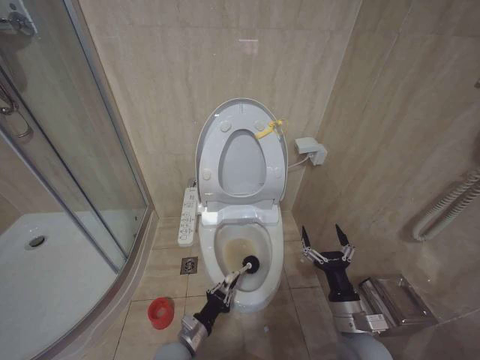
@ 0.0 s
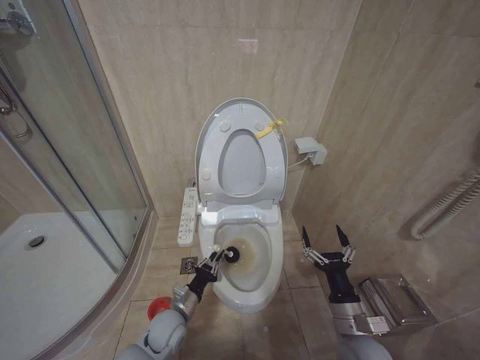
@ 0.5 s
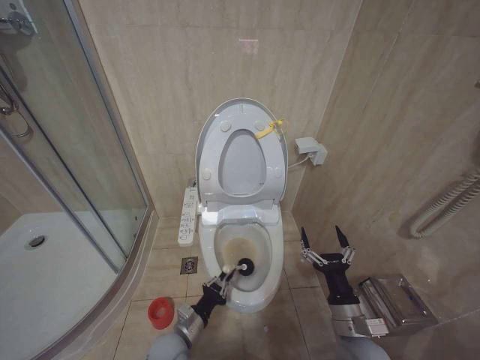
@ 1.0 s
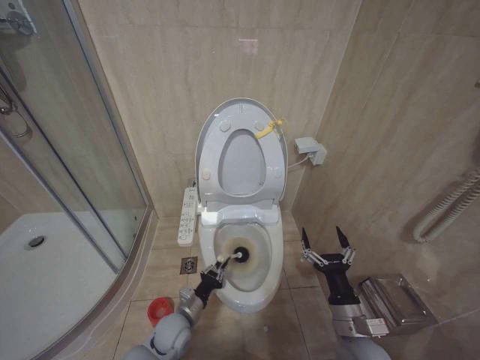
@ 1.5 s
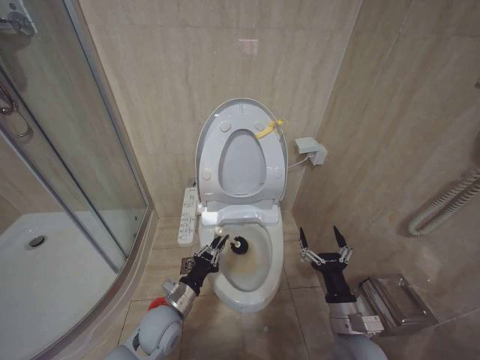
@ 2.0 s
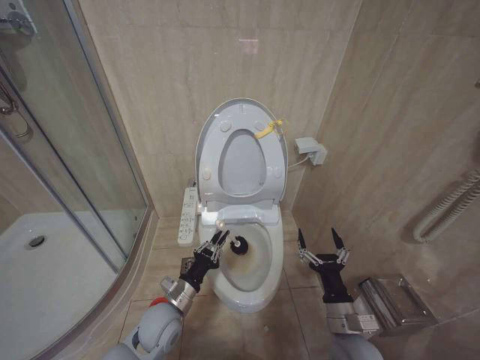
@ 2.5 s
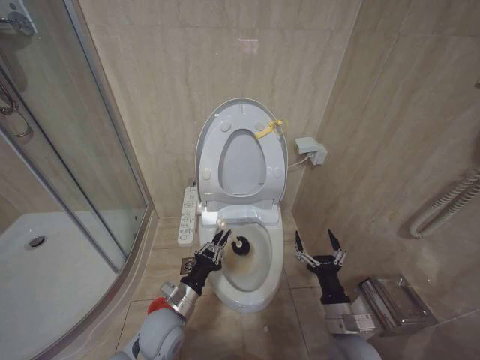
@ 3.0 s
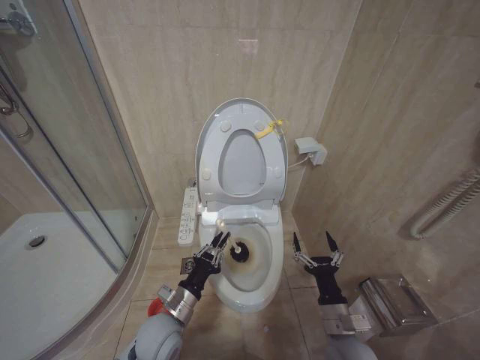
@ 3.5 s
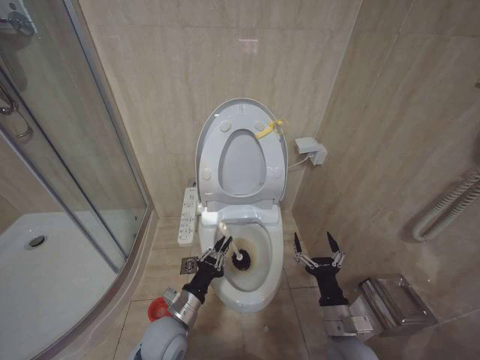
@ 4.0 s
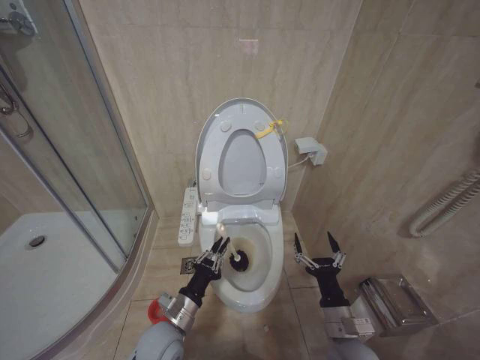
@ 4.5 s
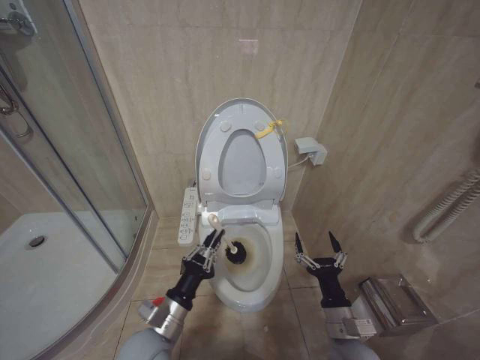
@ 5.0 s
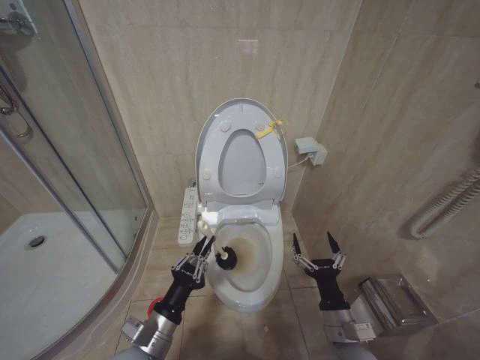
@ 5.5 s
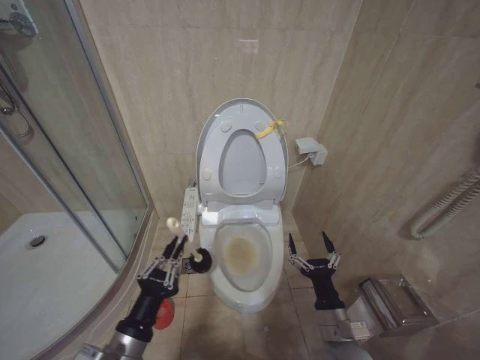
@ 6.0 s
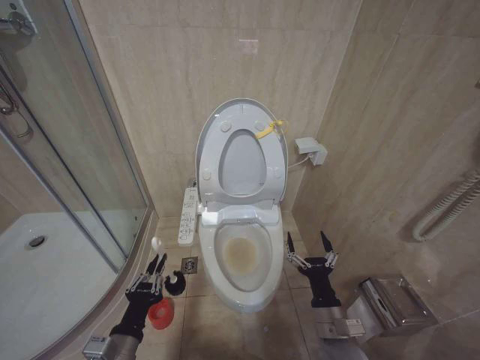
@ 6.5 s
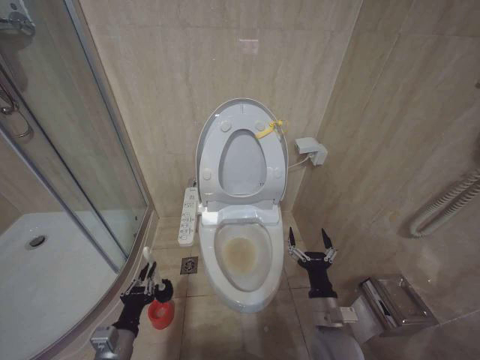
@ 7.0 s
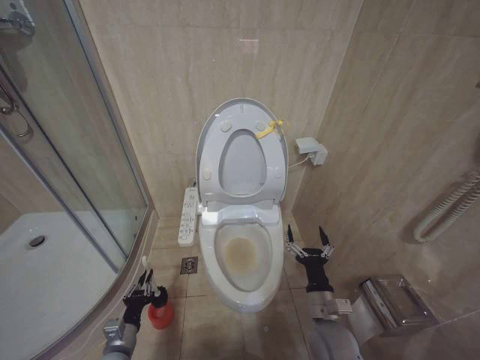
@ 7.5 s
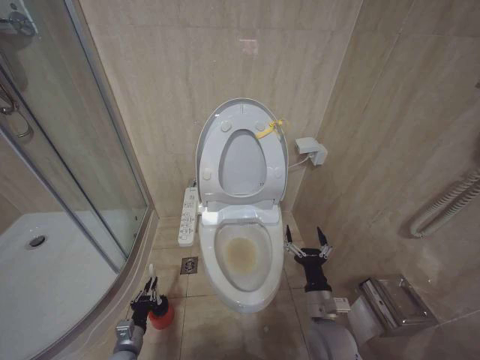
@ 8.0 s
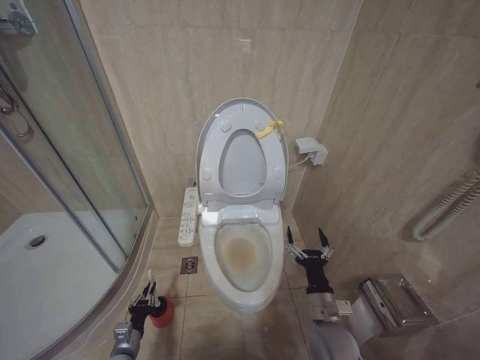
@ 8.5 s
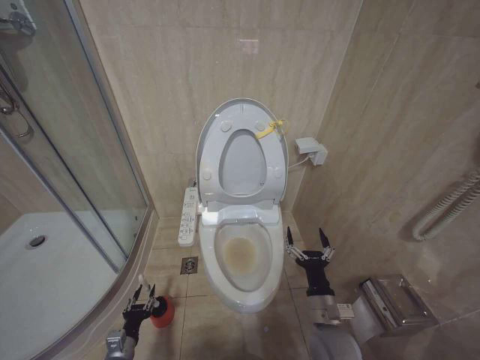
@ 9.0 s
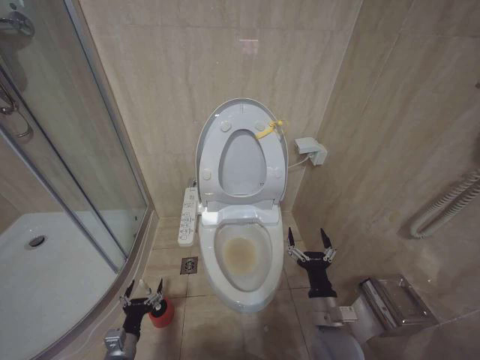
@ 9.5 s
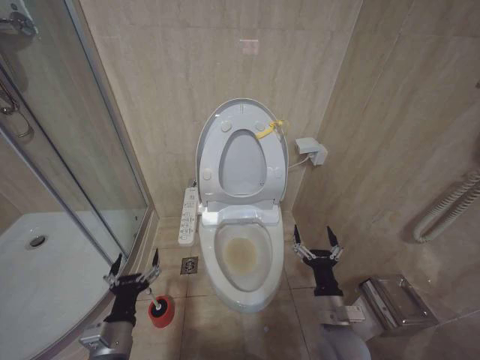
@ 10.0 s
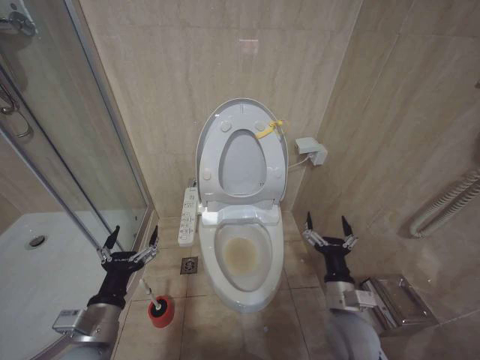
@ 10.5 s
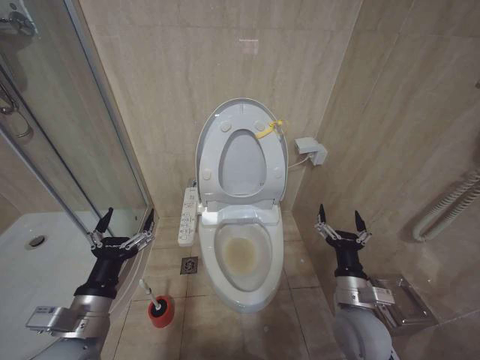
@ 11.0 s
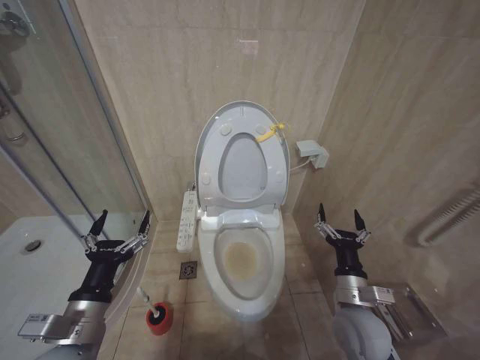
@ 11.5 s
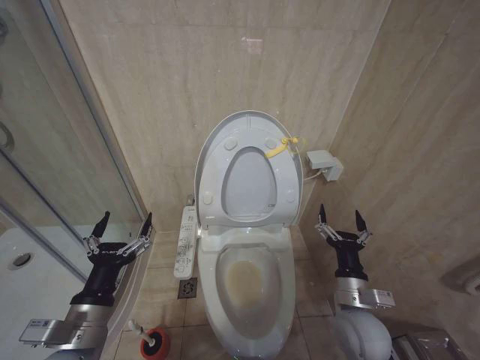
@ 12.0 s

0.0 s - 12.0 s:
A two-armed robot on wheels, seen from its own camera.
Task of the whole recording: Open the toilet lid, clean the toilet bowl with a toilet brush, close the toilet lid, and flush.
0.0 s - 2.0 s: The left gripper goes some 10 cm upward and forward.
2.0 s - 4.0 s: The grippers move only a little.
4.0 s - 6.0 s: The left gripper is displaced backward, upward and to the left by about 15 cm.
6.0 s - 8.0 s: The left gripper goes roughly 25 cm downward.
8.0 s - 10.0 s: The left gripper shifts roughly 15 cm upward, and opens up.
10.0 s - 12.0 s: The left gripper moves upward, approximately 15 cm, while the right gripper shifts about 5 cm upward.

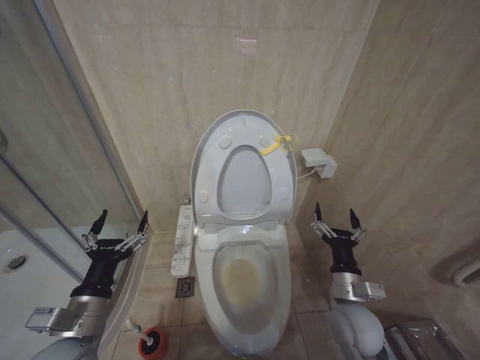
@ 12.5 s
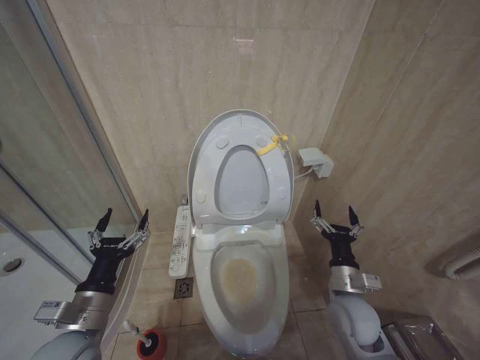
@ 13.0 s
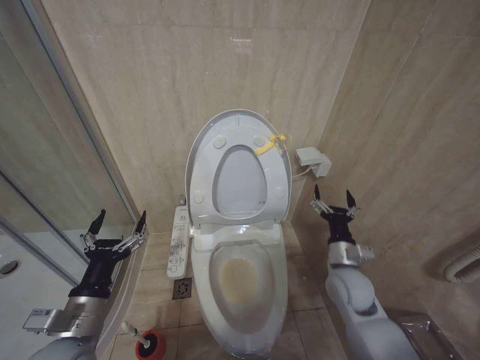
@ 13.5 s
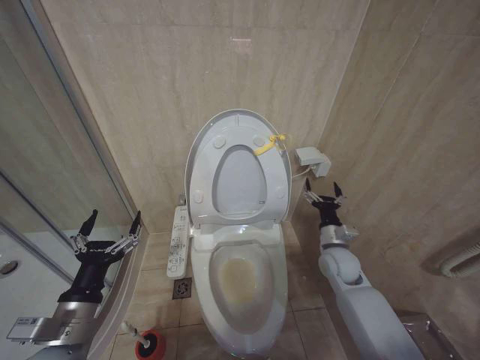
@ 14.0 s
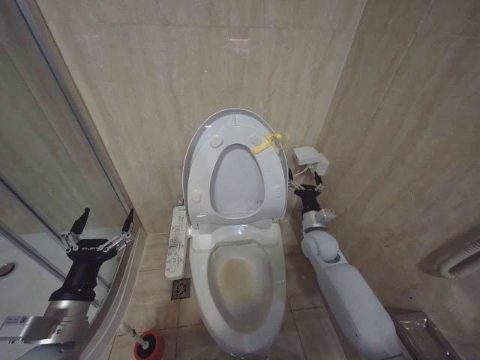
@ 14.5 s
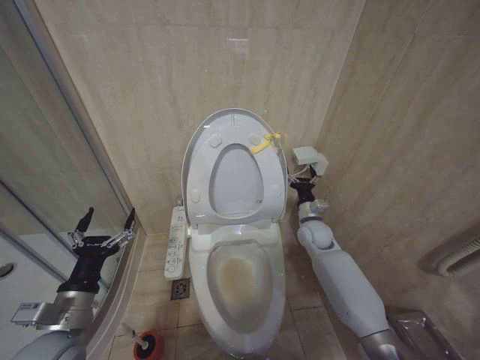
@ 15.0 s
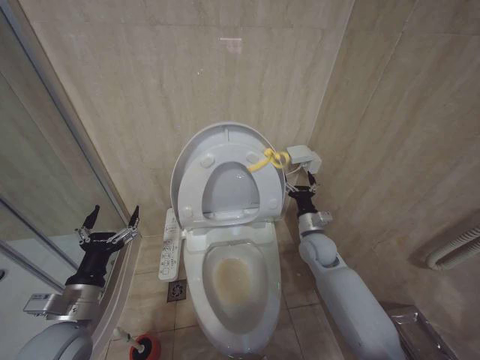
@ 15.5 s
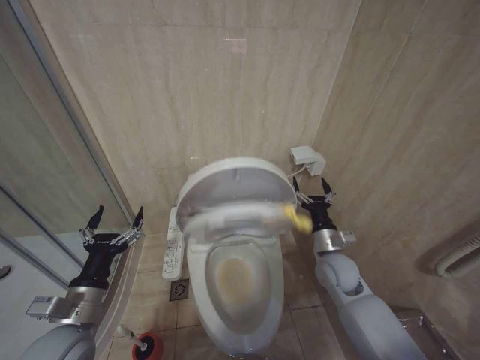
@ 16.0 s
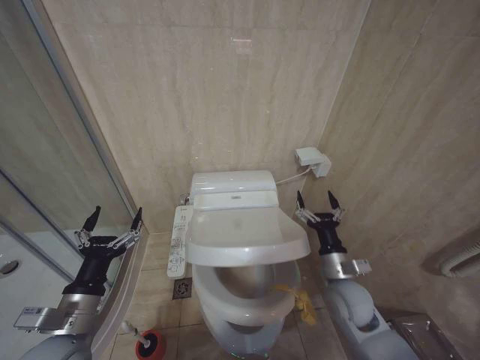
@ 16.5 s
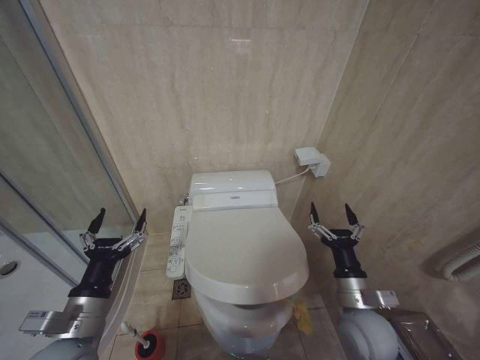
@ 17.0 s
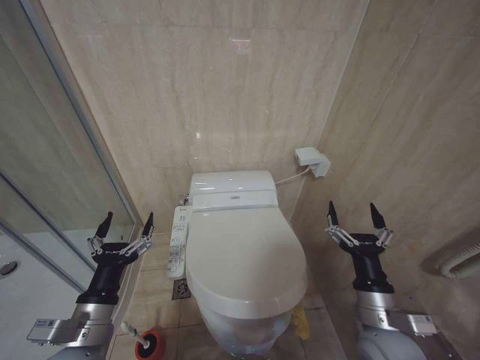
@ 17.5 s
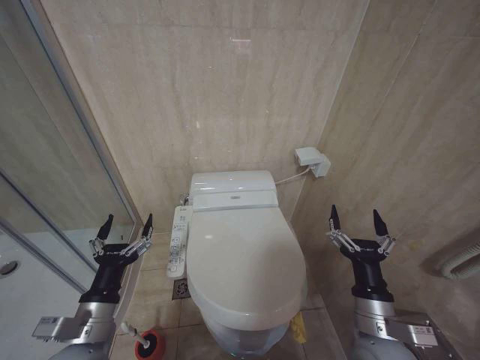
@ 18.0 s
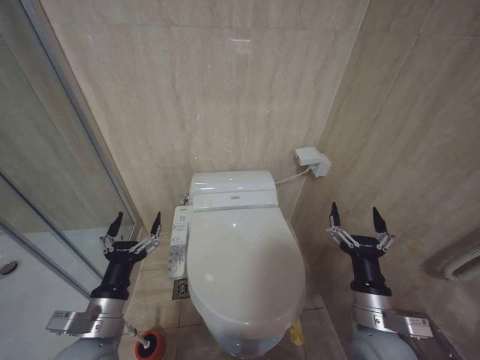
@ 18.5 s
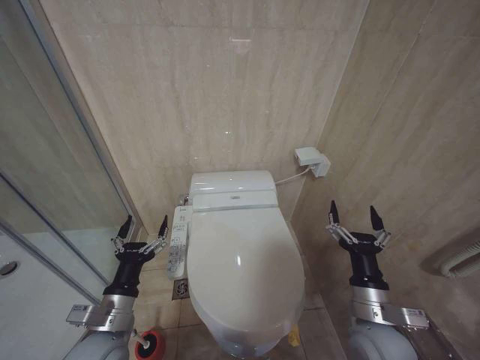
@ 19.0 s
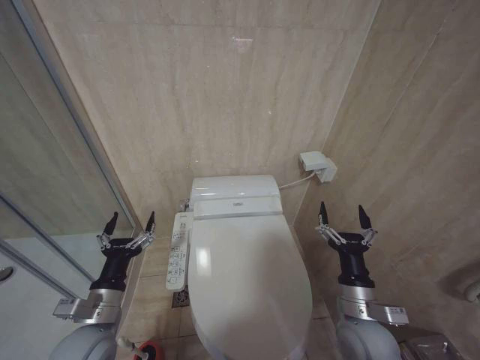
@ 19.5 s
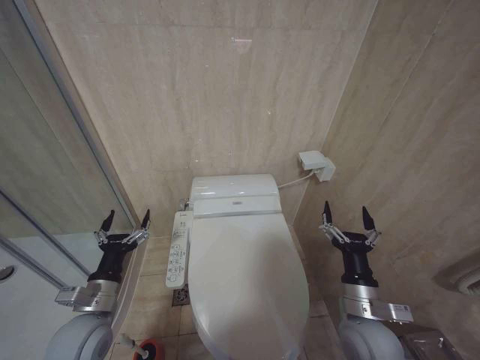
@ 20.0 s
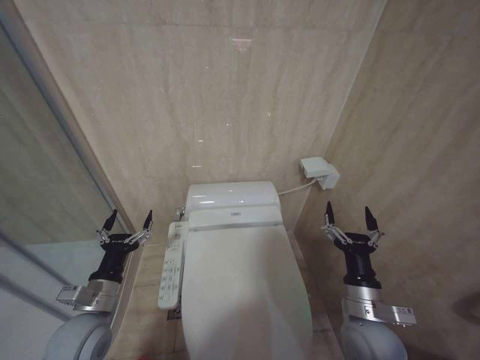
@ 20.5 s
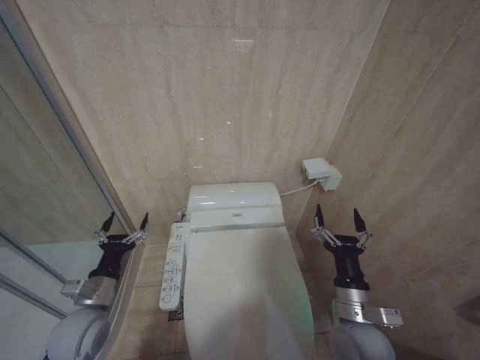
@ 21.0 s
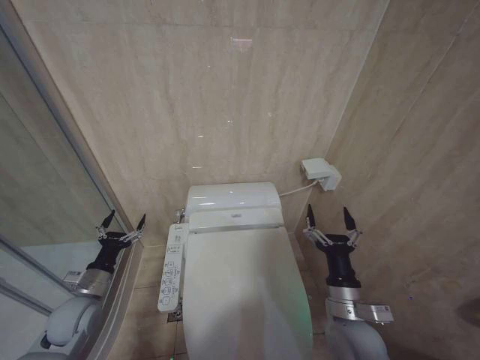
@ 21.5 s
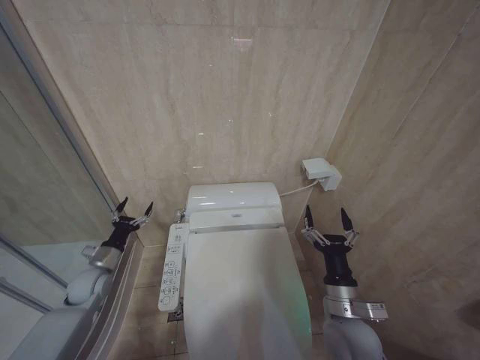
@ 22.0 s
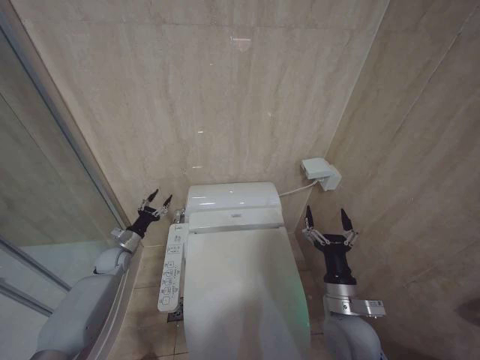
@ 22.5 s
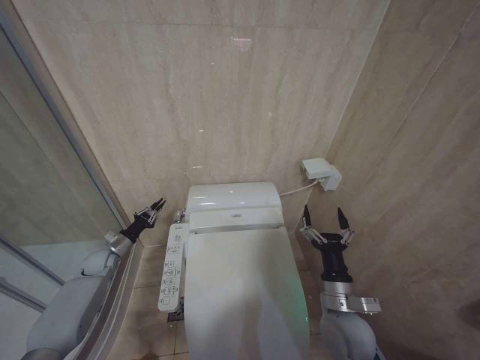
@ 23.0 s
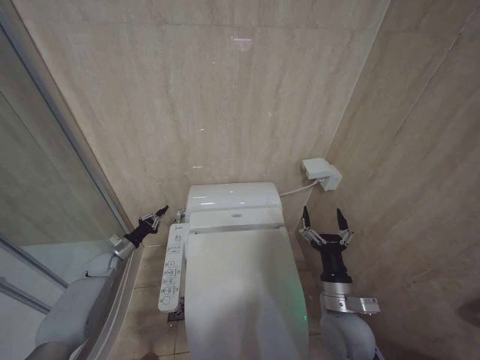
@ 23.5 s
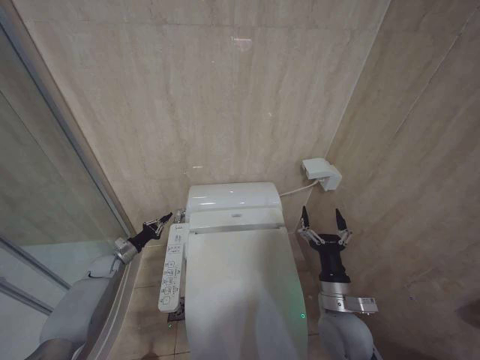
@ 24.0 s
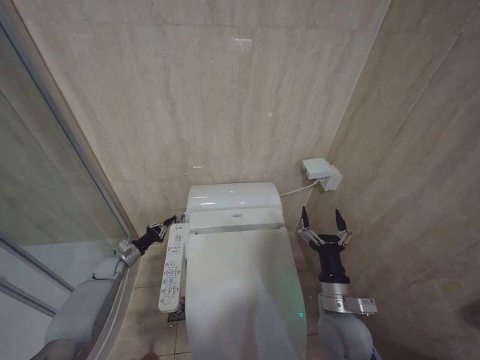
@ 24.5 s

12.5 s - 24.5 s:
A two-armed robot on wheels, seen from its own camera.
Task of the whole recording: Open the toilet lid, clean the toilet bowl with a toilet brush, close the toilet lid, and flush.
12.5 s - 14.5 s: The right gripper travels forward by about 20 cm.
14.5 s - 16.5 s: The right gripper travels backward by about 15 cm.
16.5 s - 18.5 s: The right gripper goes roughly 10 cm backward.
18.5 s - 20.5 s: The left gripper goes approximately 5 cm forward.
20.5 s - 22.5 s: The left gripper is displaced forward and downward by roughly 25 cm.
22.5 s - 24.5 s: The left gripper is displaced downward by some 5 cm, and closes up.

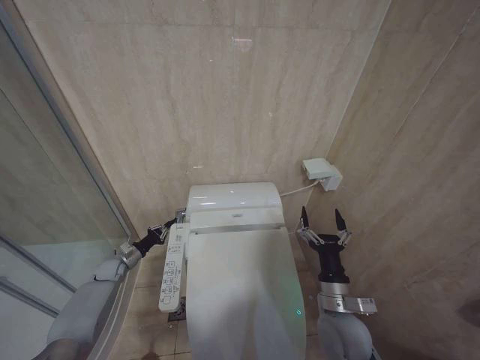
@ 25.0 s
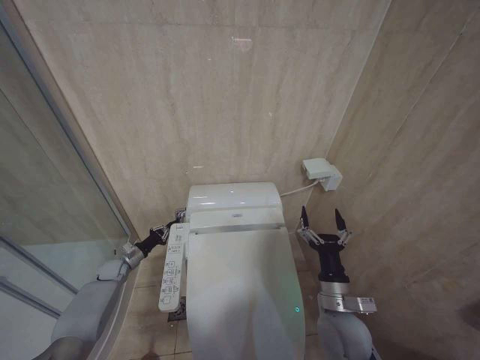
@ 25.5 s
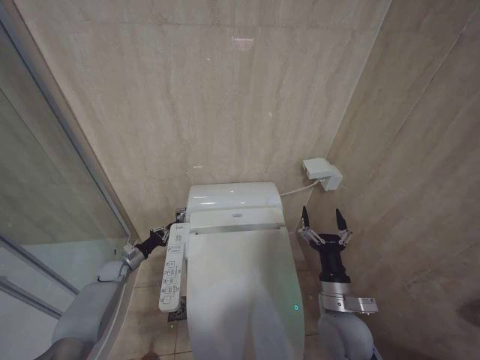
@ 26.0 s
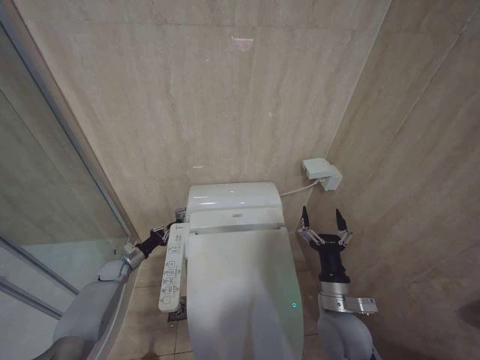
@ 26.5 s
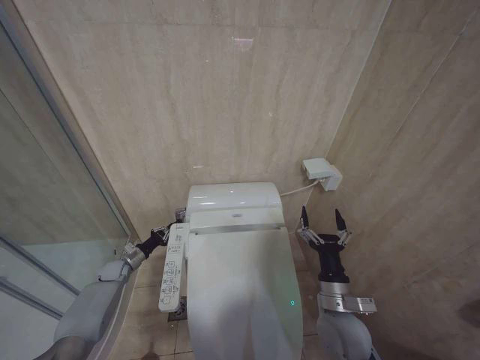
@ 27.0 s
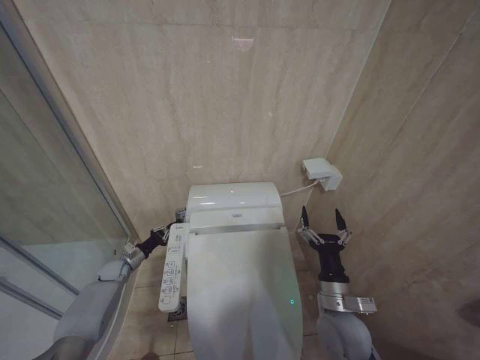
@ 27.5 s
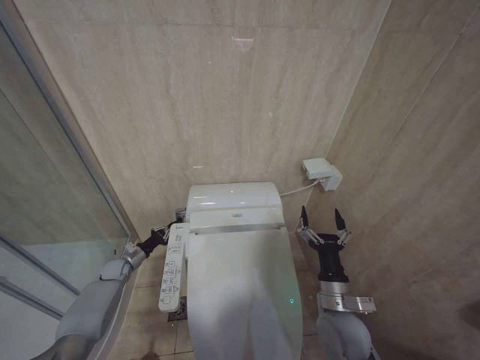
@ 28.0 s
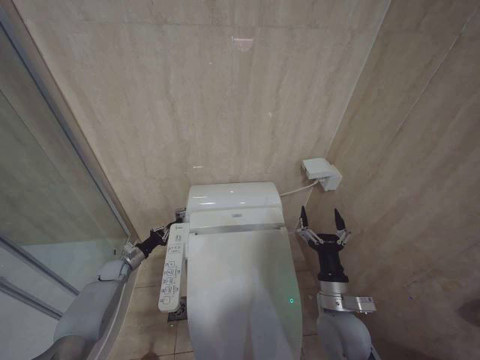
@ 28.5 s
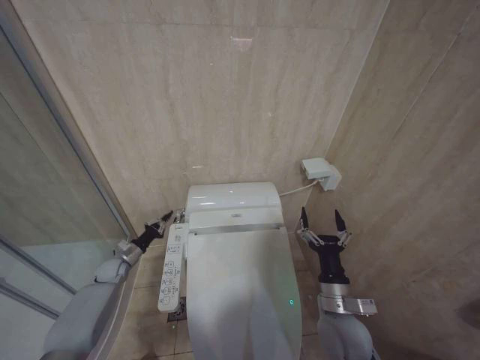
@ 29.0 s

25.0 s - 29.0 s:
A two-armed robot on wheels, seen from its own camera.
Task of the whole recording: Open the toilet lid, clean the toilet bowl with a toilet brush, close the toilet lid, and flush.
27.0 s - 29.0 s: The two grippers keep their place.
